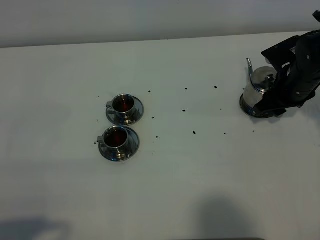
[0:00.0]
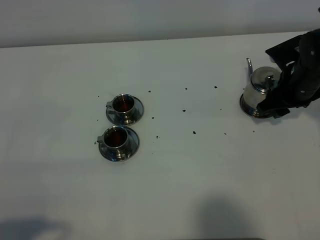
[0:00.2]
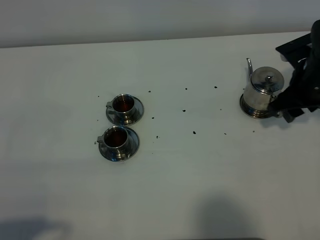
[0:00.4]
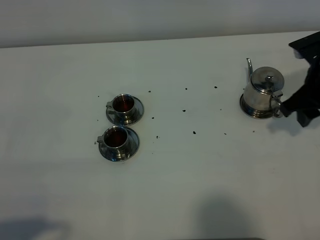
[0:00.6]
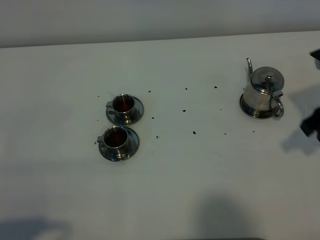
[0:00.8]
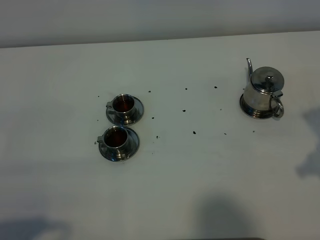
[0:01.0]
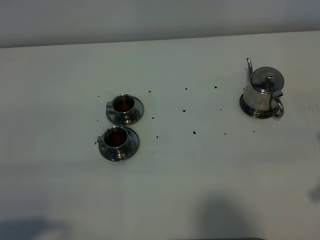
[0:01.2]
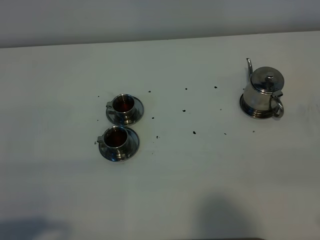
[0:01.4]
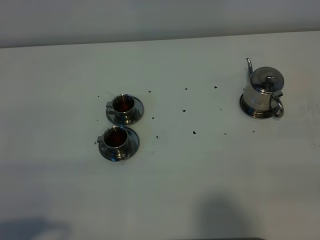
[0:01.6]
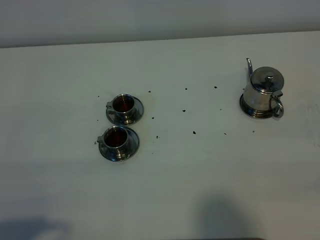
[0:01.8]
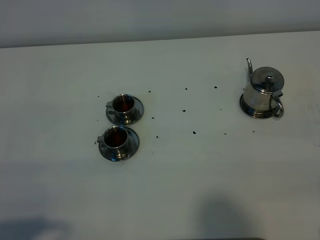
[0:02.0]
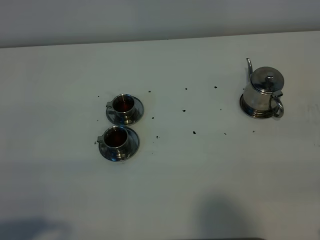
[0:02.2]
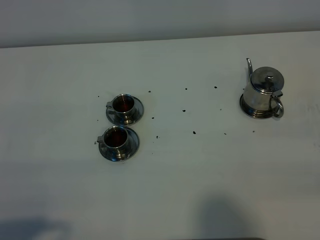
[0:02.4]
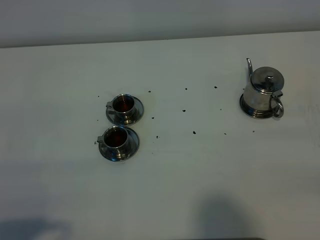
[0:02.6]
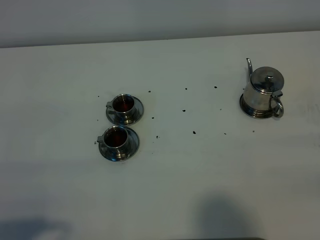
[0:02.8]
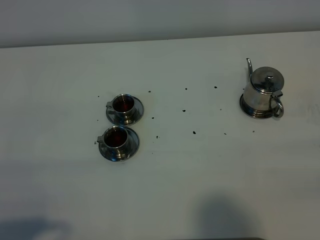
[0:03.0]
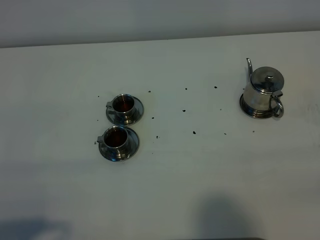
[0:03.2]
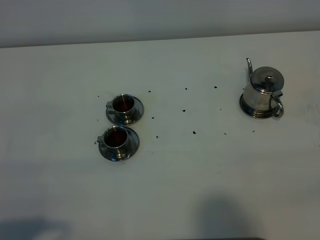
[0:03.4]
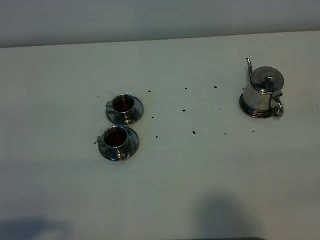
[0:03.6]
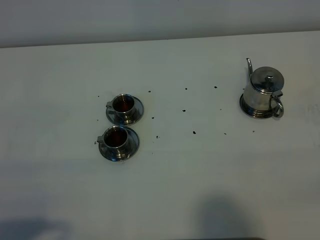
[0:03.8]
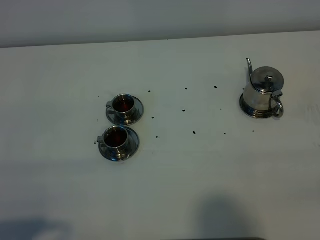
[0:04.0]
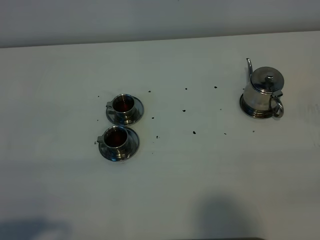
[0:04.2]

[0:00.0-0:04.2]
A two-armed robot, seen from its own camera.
Task of the whole recording: grasp the stainless steel teapot and pour the tea into the two stainless steel teacups one by one, put the stainless steel teapot back in its original place.
0:00.0 to 0:01.4: The right gripper moves backward and upward, about 30 cm.
